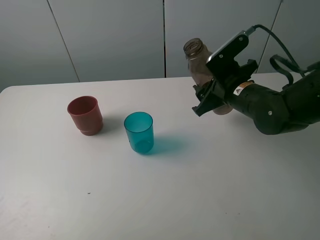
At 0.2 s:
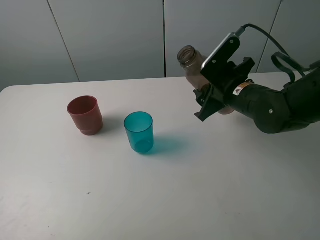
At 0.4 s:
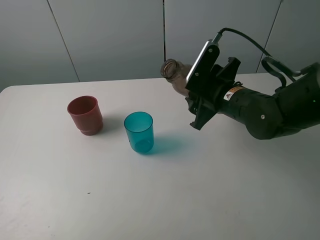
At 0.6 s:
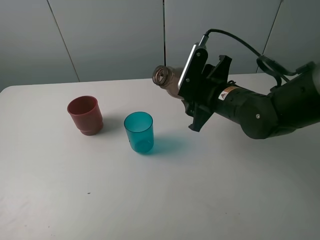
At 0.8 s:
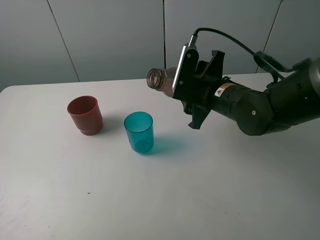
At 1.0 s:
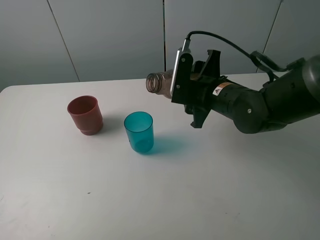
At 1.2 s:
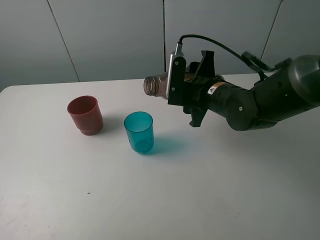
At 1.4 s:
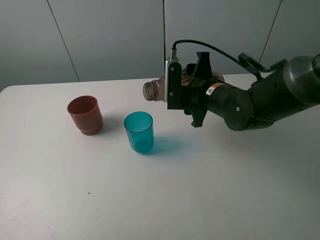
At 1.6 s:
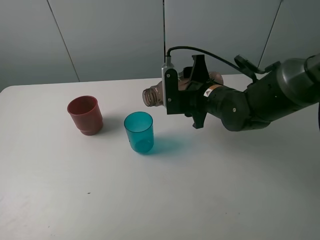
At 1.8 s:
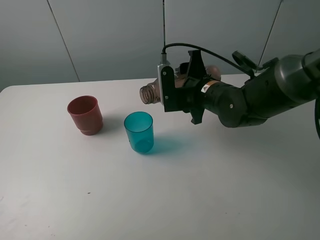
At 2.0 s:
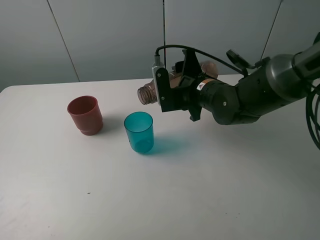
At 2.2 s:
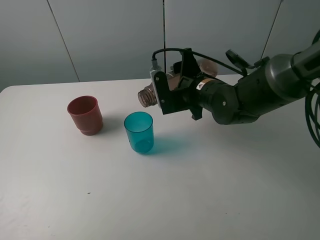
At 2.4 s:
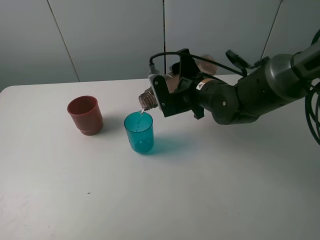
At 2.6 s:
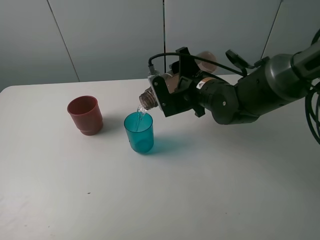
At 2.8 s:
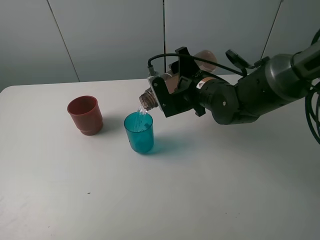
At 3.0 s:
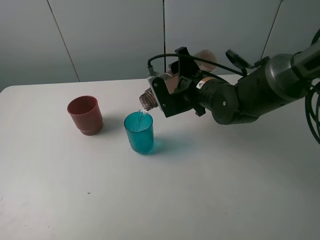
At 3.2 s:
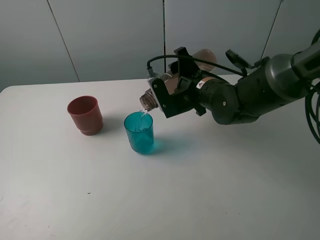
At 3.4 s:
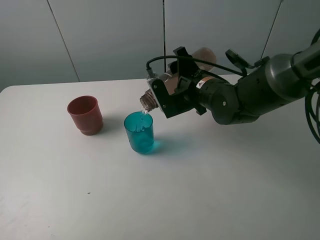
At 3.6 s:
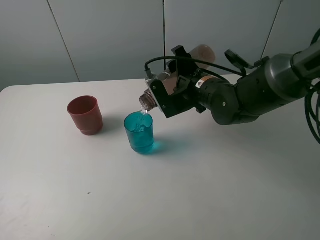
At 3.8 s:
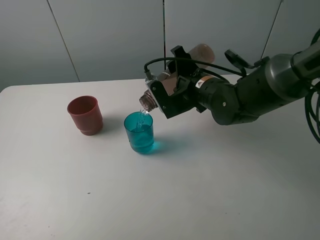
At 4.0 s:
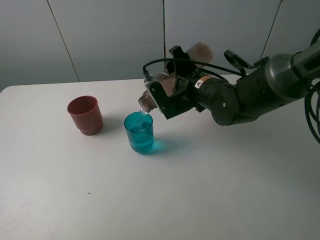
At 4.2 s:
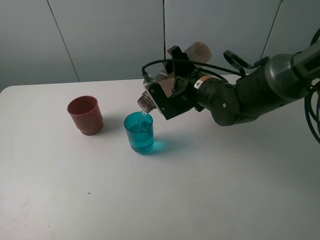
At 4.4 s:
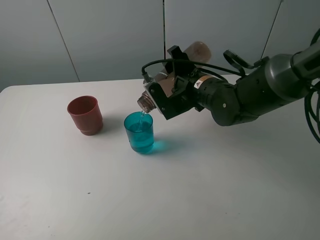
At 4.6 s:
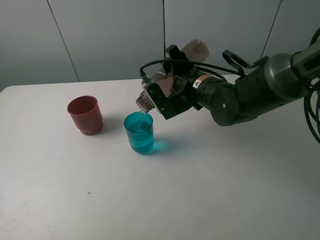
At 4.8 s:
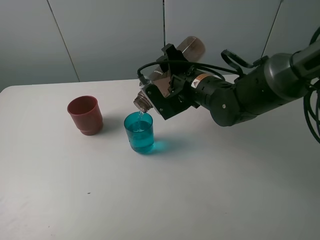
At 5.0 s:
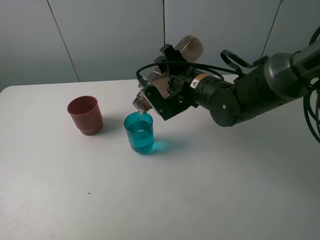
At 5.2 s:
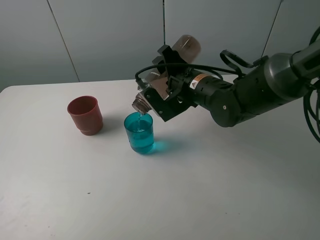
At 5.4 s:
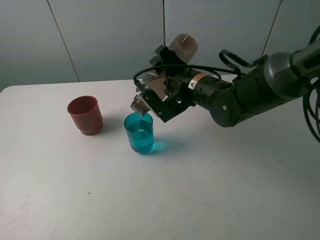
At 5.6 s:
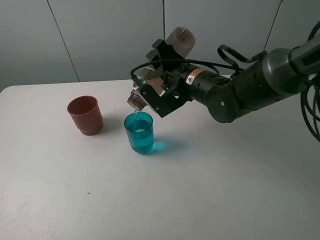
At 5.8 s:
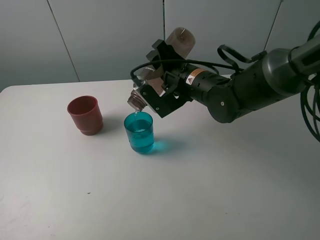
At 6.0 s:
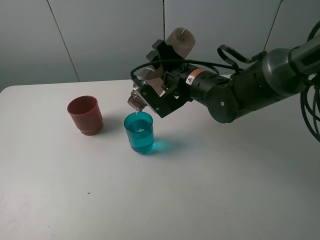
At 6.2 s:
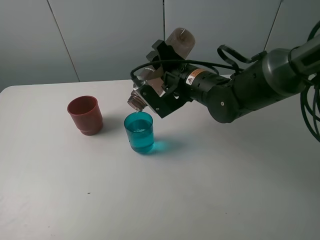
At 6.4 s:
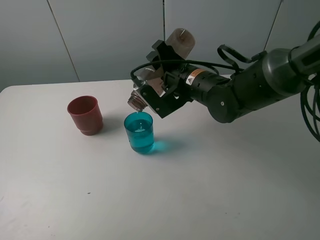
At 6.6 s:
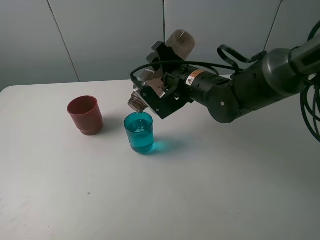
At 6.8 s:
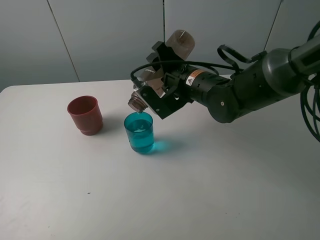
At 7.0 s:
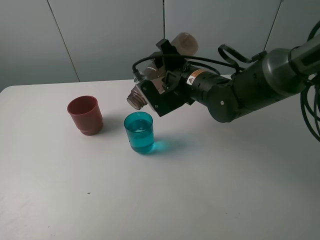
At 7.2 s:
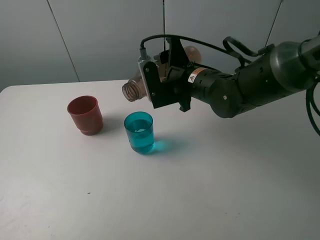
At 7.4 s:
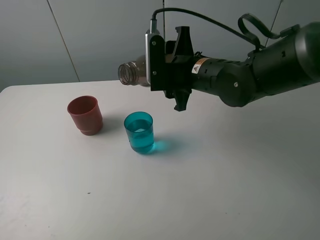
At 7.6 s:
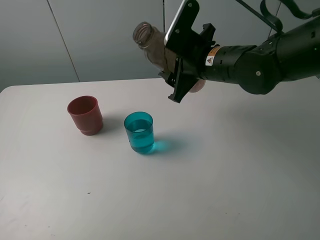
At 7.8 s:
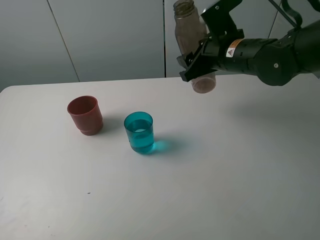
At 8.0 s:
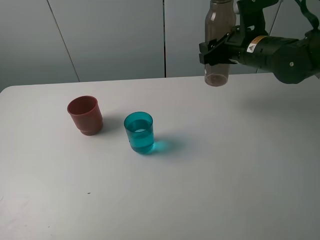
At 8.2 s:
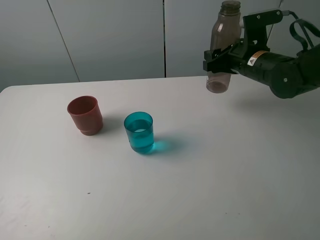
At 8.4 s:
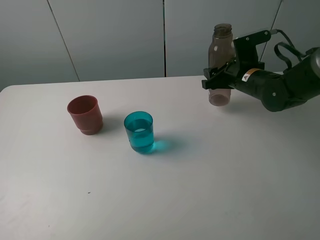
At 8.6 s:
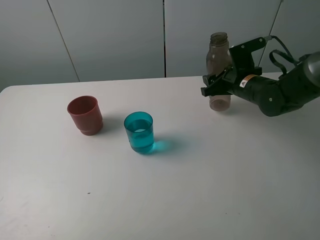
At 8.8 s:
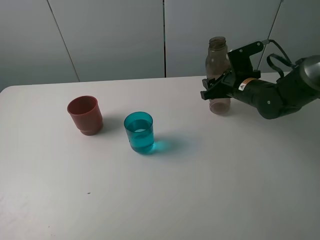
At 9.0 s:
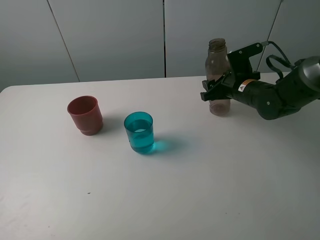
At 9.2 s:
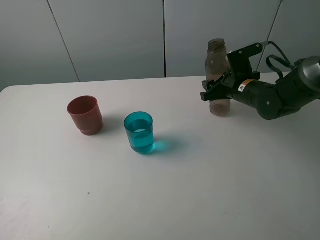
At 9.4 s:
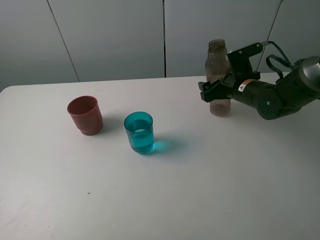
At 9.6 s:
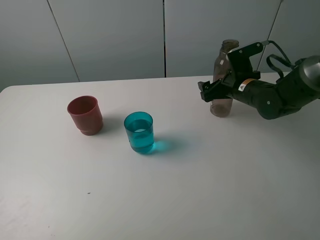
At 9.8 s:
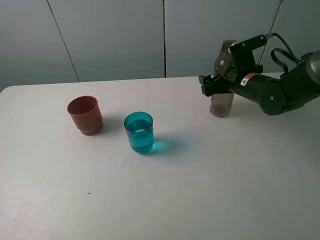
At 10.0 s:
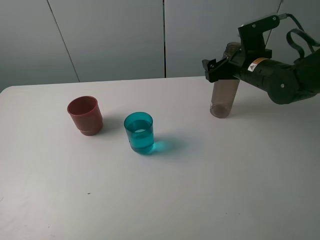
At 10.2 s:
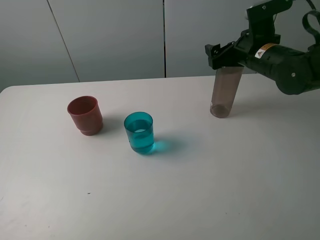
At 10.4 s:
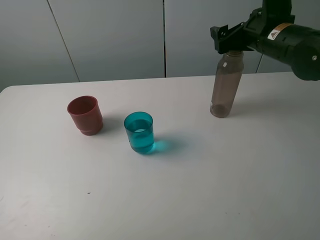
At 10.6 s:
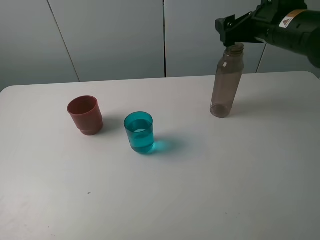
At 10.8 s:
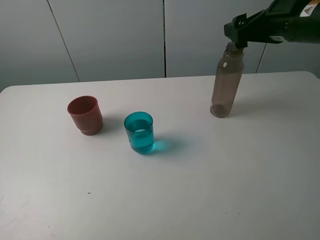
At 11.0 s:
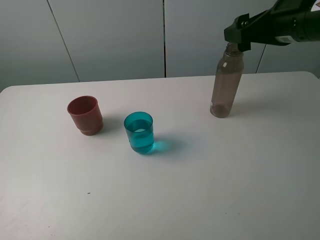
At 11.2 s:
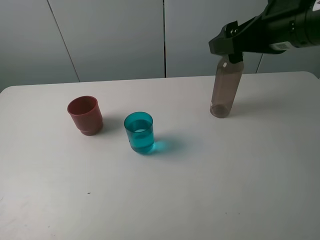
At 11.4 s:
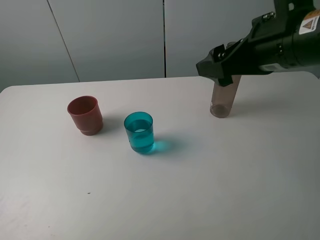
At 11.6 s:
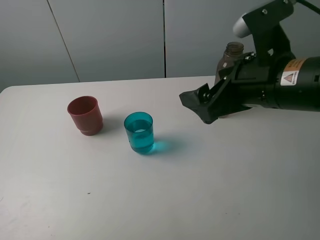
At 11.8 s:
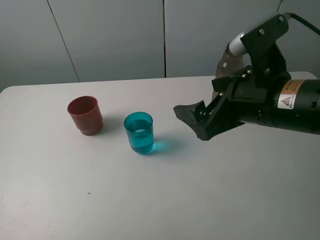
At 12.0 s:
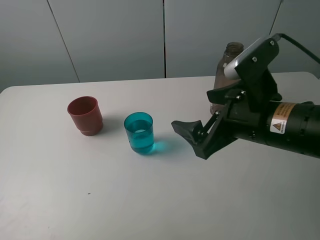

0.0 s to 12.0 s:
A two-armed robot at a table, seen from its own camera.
Task of the whole recording: pick up the bottle and pour water into the cup, then pick up the cup containing water and pour it into another cup.
Step, 0.0 to 7.0 s: Pour water from brown bottle to blue cup with the right gripper.
Step, 7.2 to 9.6 s: Place the brown bottle with the right gripper.
0.0 to 1.6 s: The right gripper travels to the left by some 5 cm.
1.6 to 3.0 s: There are only small adjustments of the grippers.
3.0 to 4.4 s: The grippers move only a little.
4.4 to 6.0 s: The grippers stay close to where they were, moving slightly.
6.0 to 7.6 s: The right gripper shifts by approximately 5 cm.
7.6 to 9.0 s: The right gripper moves downward and to the right, roughly 15 cm.
9.0 to 10.4 s: The right gripper goes roughly 15 cm upward, and opens up.
10.4 to 12.0 s: The right gripper shifts roughly 15 cm backward.

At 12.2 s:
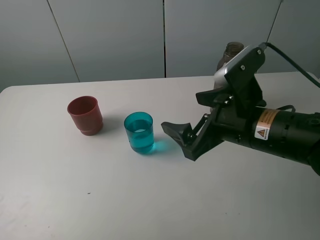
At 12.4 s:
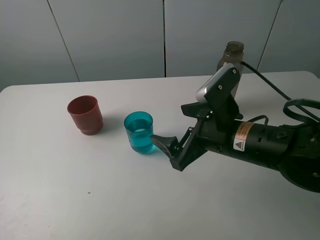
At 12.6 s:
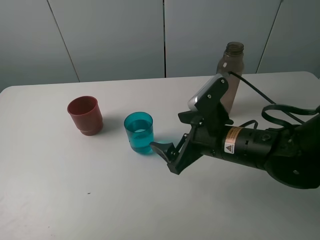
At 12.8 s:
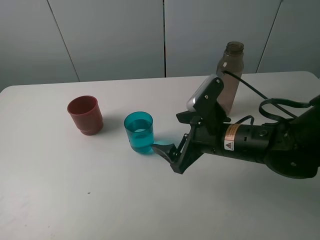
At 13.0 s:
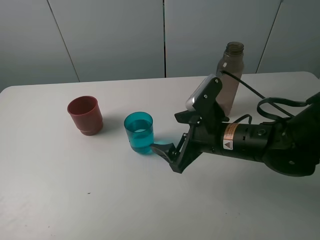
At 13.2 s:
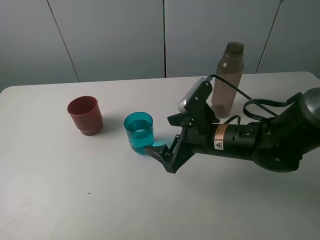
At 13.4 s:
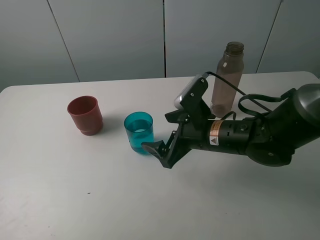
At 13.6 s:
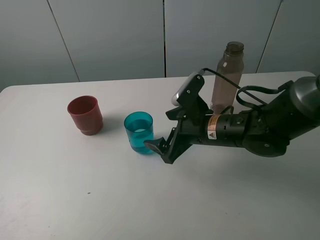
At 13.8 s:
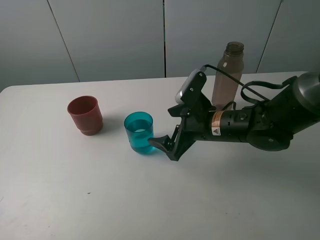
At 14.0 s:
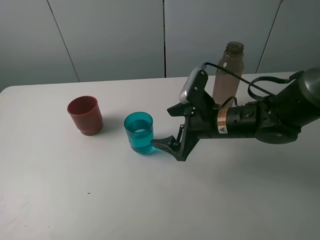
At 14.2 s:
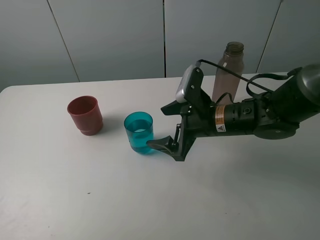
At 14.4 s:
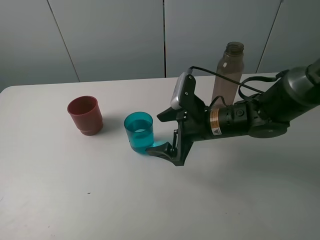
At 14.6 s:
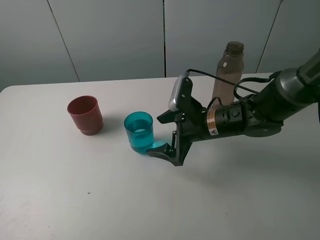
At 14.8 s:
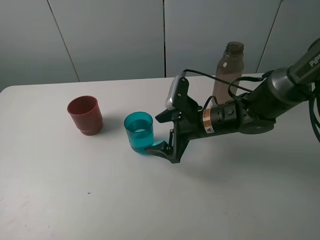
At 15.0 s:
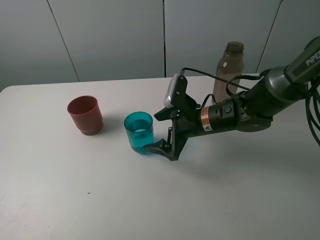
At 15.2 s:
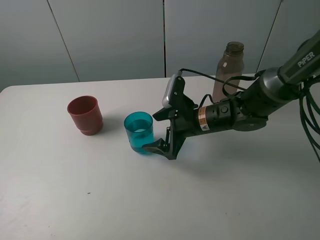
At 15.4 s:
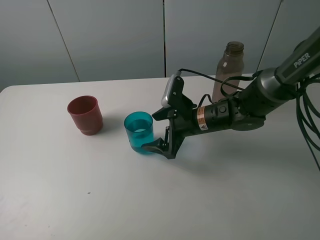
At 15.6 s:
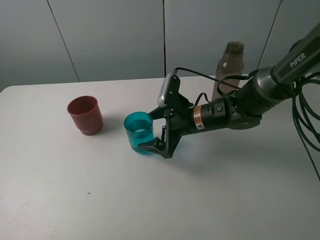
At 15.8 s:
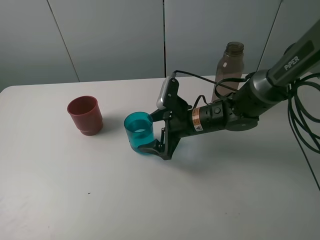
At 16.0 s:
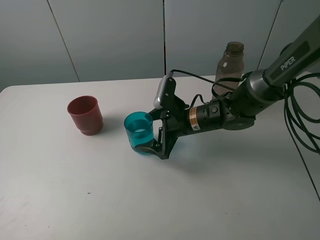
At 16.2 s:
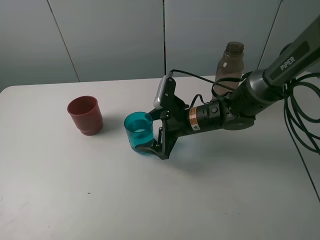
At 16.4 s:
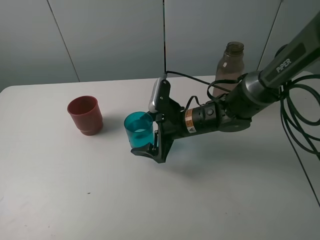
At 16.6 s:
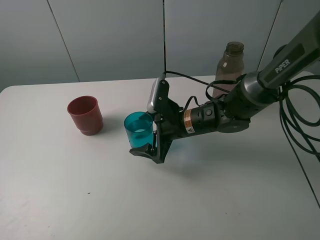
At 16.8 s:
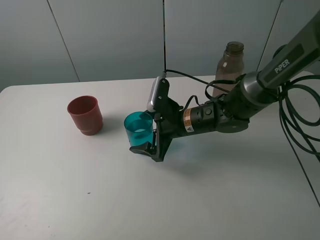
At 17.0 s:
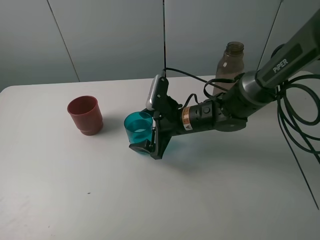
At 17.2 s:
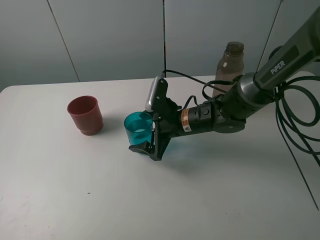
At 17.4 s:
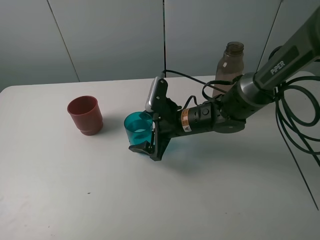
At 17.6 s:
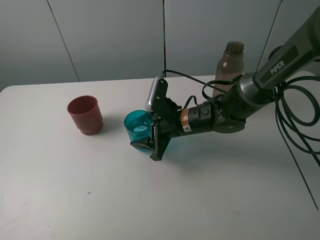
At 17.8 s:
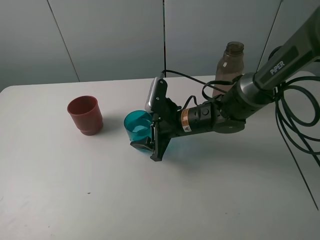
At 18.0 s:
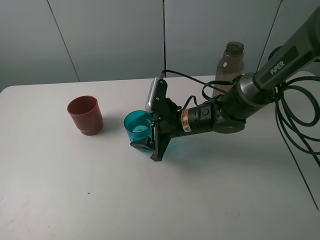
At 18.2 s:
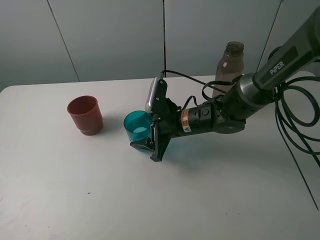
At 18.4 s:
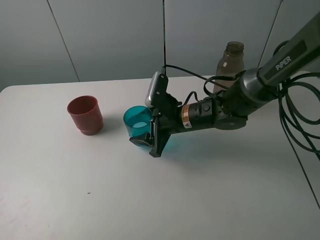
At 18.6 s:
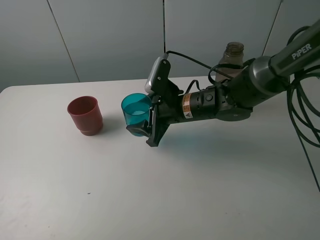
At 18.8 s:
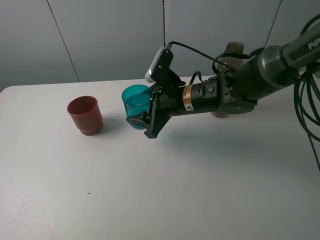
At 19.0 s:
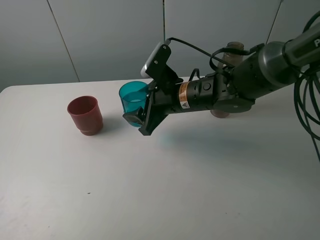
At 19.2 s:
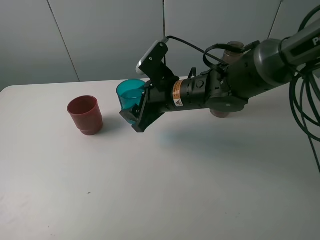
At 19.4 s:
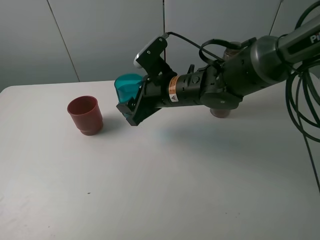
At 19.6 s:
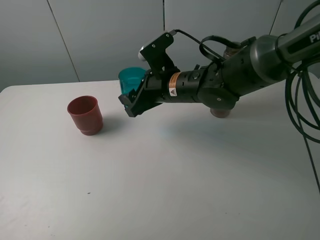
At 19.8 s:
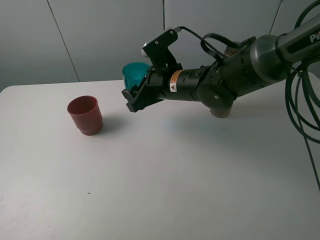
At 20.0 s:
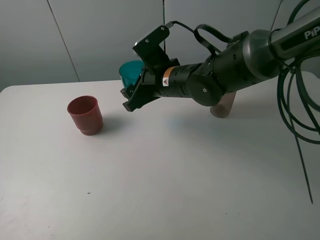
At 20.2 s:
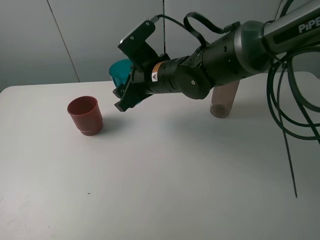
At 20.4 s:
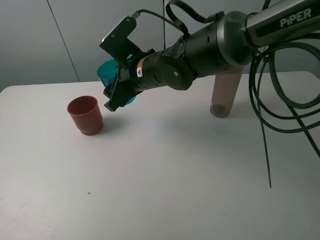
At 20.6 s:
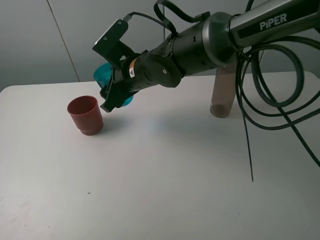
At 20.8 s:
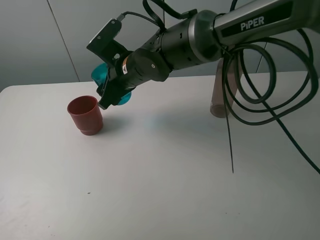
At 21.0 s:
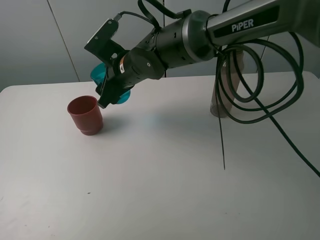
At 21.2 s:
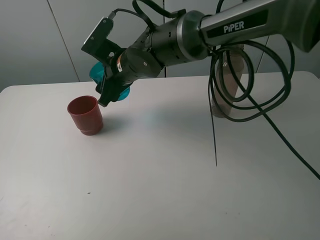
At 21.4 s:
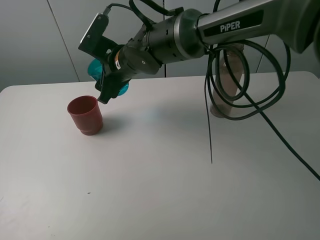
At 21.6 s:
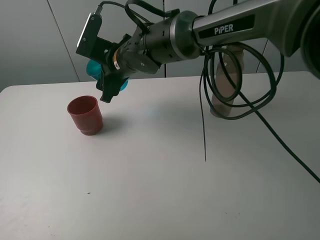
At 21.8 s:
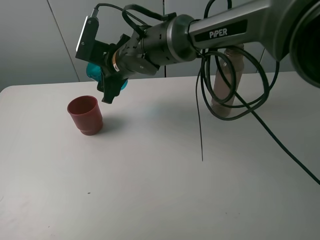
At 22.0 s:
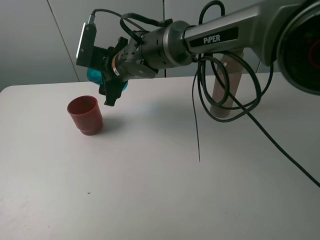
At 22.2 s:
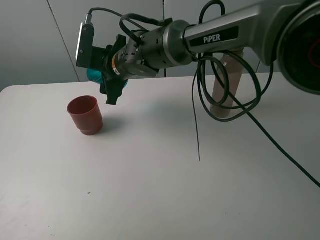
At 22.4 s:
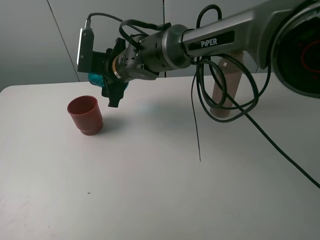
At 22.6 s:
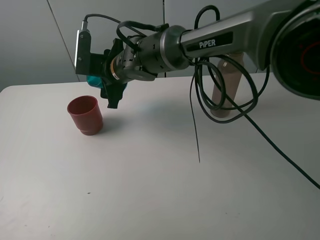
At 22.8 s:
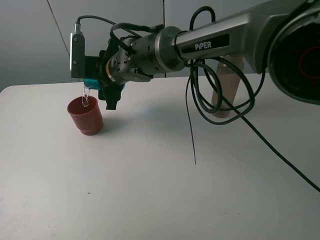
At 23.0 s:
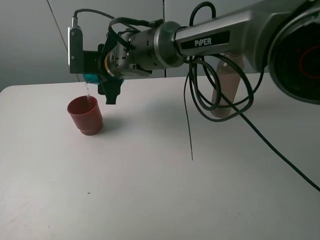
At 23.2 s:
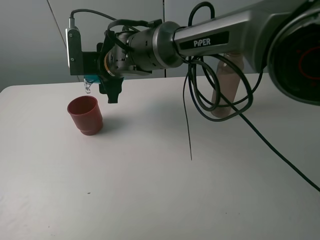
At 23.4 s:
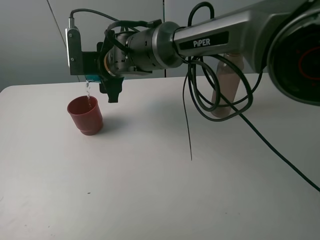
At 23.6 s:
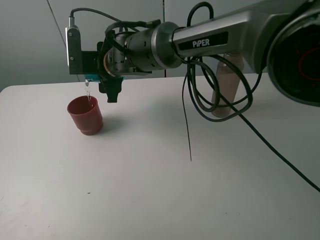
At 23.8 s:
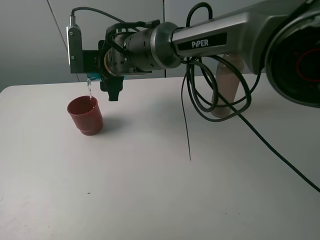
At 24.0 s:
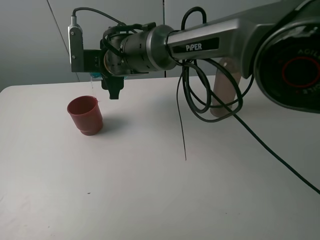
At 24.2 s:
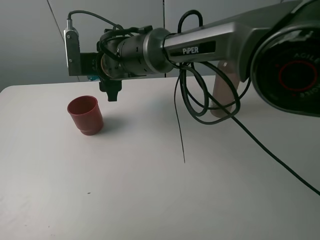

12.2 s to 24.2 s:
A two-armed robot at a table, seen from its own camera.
Task of the whole recording: pick up the bottle and pour water into the cup, then pick up the cup containing water and pour it into another cup.
Step, 12.2 to 17.8 s: Grasp the blue cup with the right gripper.
12.2 to 13.8 s: The right gripper heads forward and downward, covering roughly 10 cm.
13.8 to 15.2 s: The right gripper moves approximately 5 cm.
15.2 to 16.6 s: The grippers move only a little.
16.6 to 18.2 s: The right gripper closes its fingers.
18.2 to 19.8 s: The right gripper travels upward by some 10 cm.
19.8 to 21.2 s: The right gripper travels to the left by approximately 10 cm.
22.6 to 24.2 s: The grippers make only small movements.
